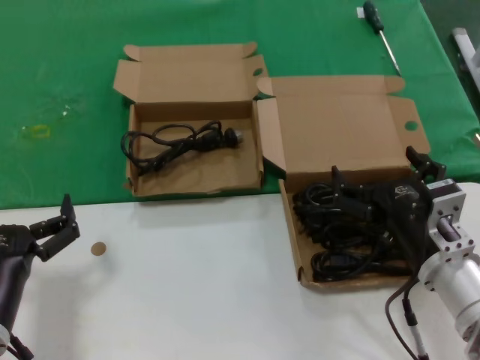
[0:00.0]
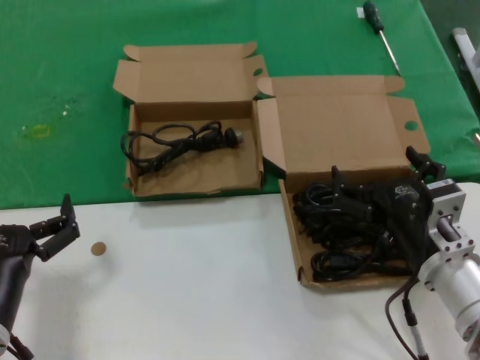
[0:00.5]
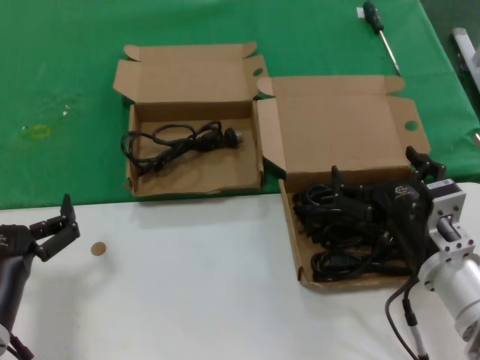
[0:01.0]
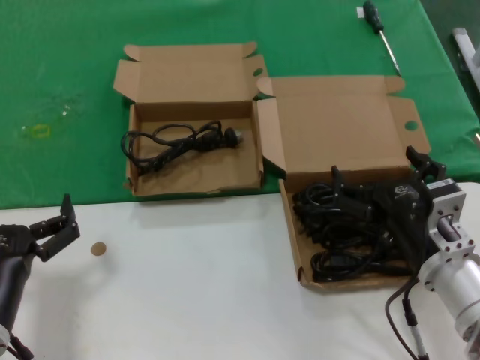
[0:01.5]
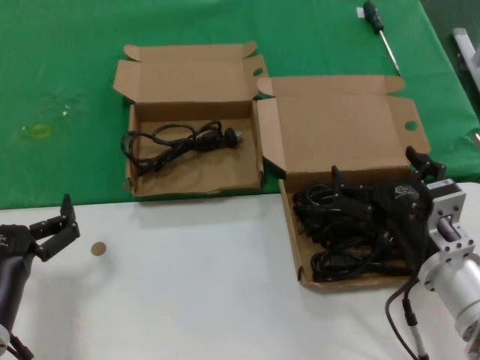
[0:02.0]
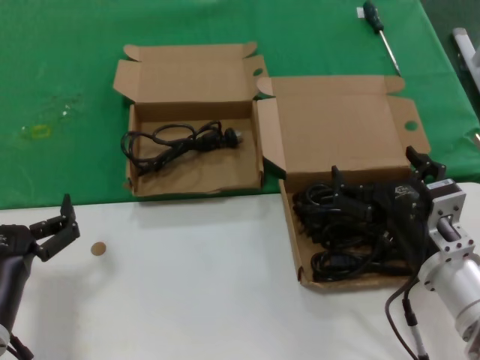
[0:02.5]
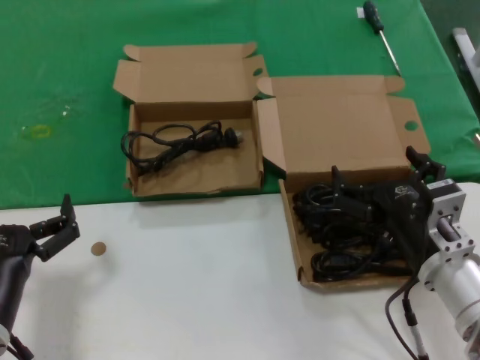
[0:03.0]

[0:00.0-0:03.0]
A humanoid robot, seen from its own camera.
Task of the whole recording: take the parts from the box containing them and put them into an empty box.
0:00.0 to 0:03.0: Both hands stay about where they are.

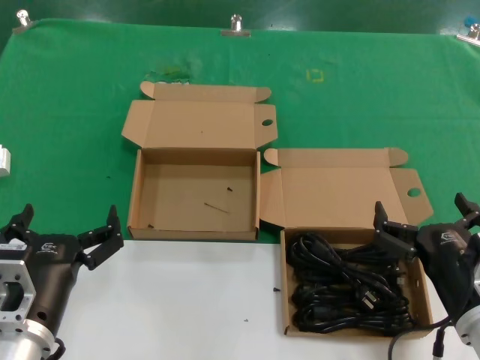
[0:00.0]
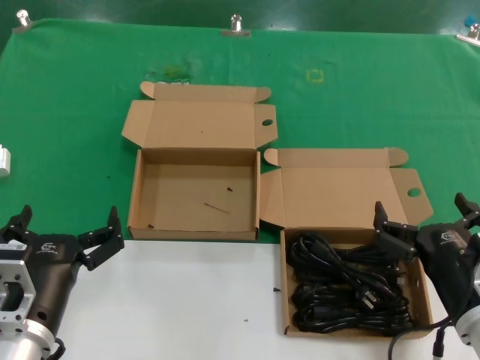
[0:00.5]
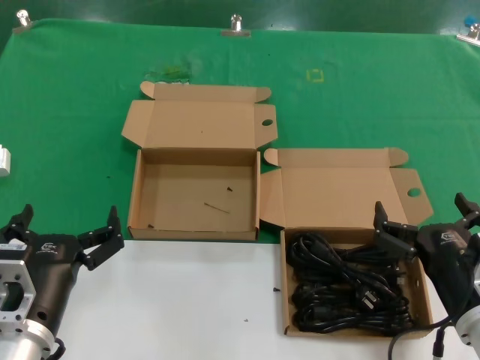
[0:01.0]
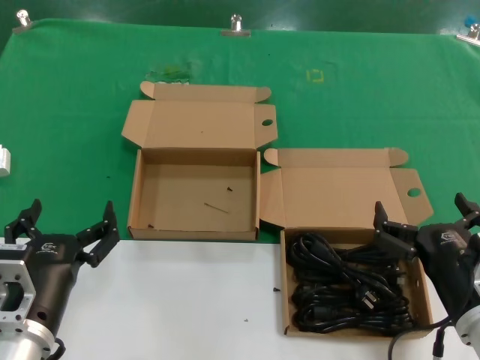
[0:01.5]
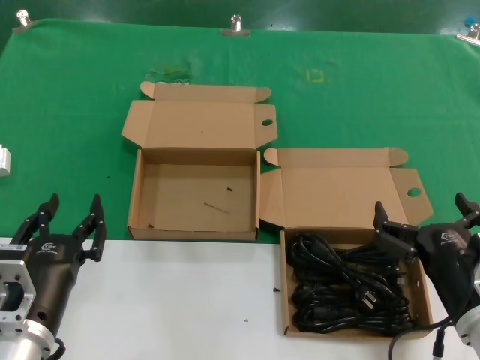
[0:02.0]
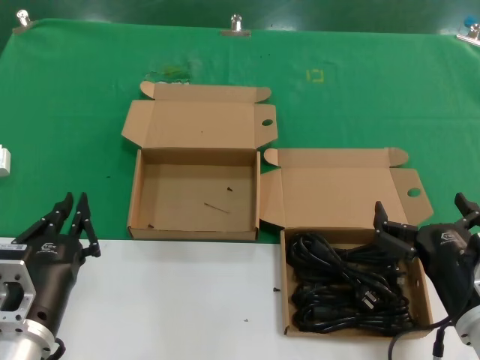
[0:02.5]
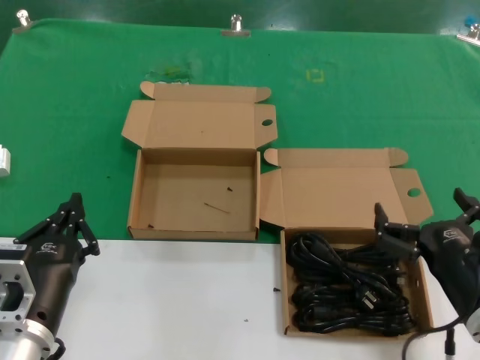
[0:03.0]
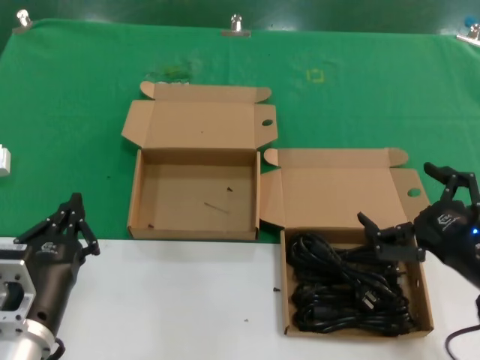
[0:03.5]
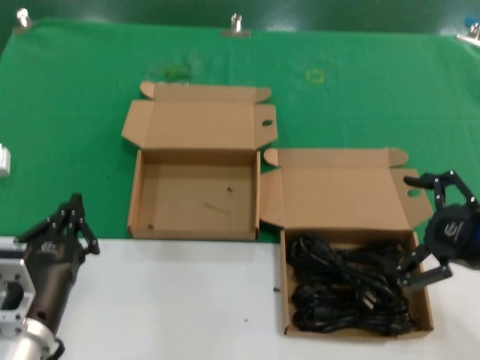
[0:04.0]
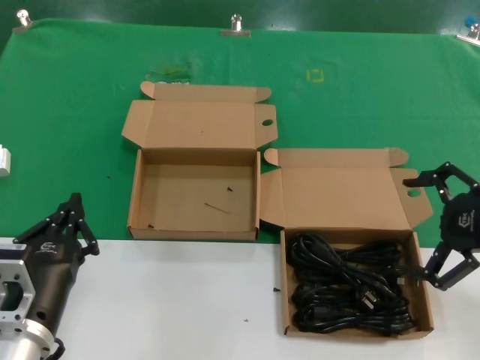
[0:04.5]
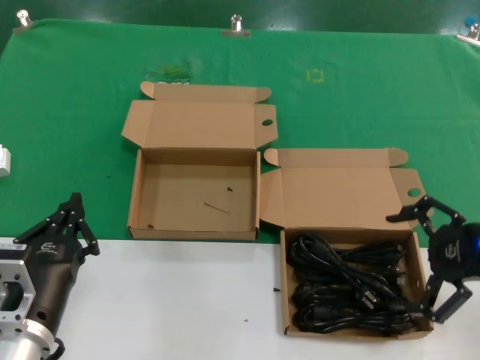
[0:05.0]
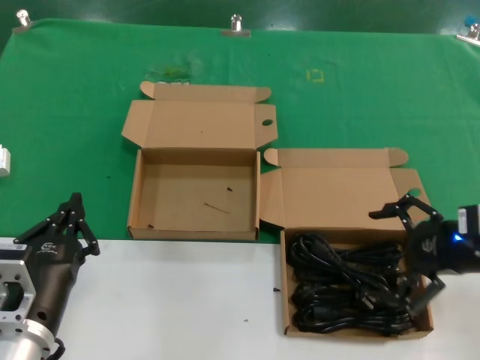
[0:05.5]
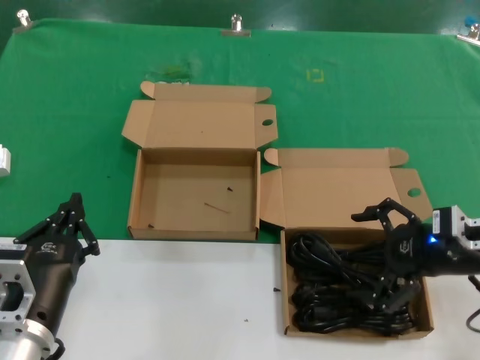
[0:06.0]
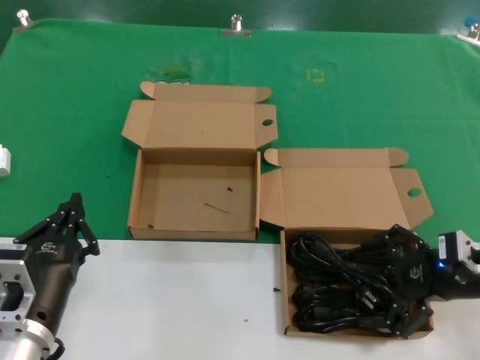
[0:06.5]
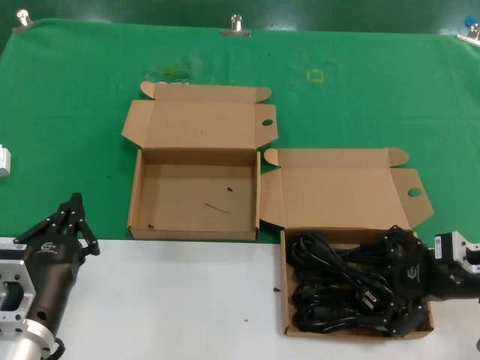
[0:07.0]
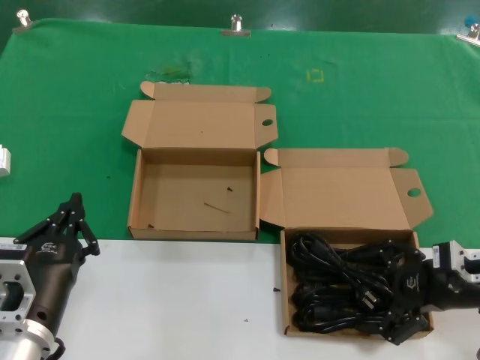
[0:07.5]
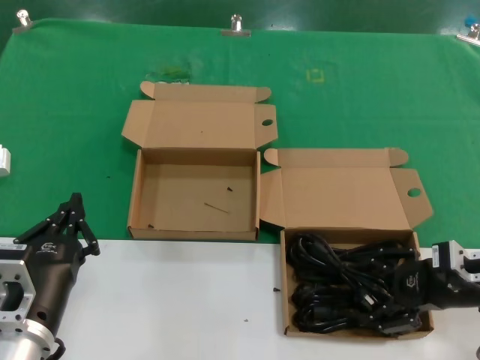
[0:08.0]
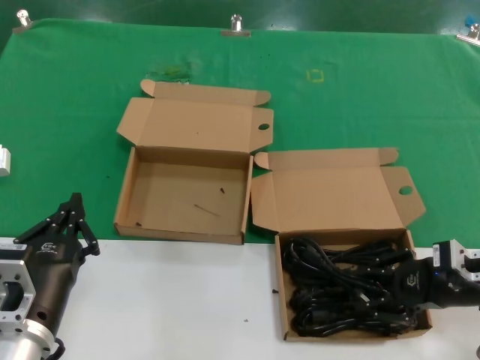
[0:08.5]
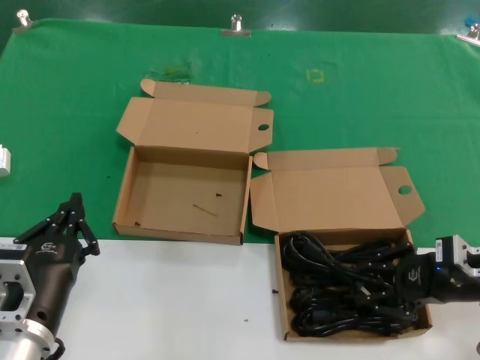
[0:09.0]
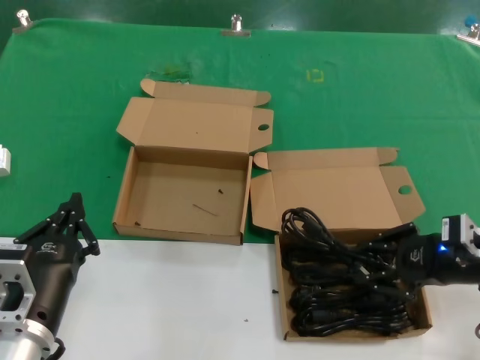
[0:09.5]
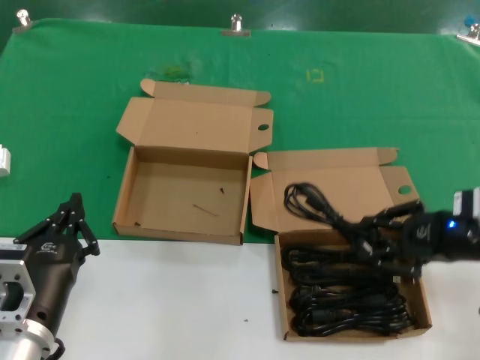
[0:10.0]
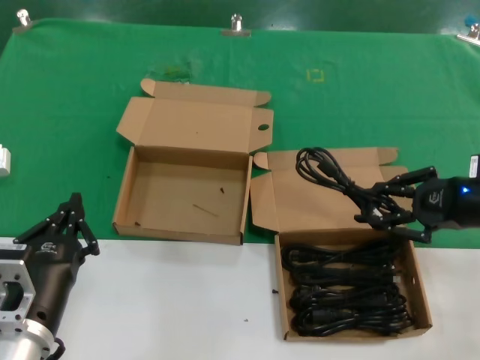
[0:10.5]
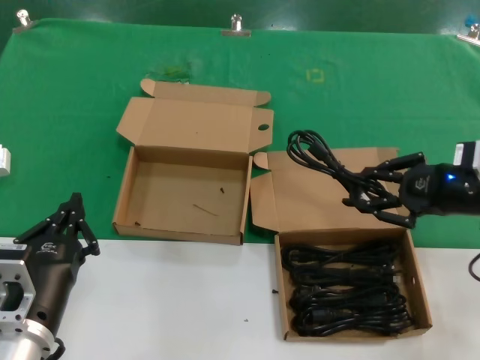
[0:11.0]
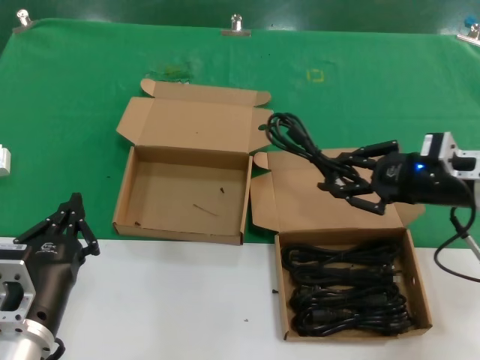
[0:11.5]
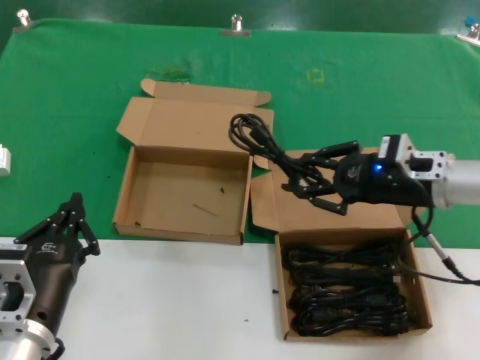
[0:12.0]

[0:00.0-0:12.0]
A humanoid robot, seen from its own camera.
Task of the whole recording: take the parts from the box containing them and put them into an empty box.
Step, 0:00.0 to 0:08.0: Grasp the data cable.
0:00.0 to 0:02.0: Both hands stay about where they are.
0:02.0 to 0:04.0: The right hand heads to the right and upward, covering some 15 cm.
0:04.0 to 0:06.0: The right hand travels forward by roughly 10 cm.
0:06.0 to 0:08.0: The hands move only a little.
0:08.0 to 0:10.0: The right hand travels upward by approximately 5 cm.
0:10.0 to 0:12.0: The right hand moves to the left and forward, approximately 10 cm.

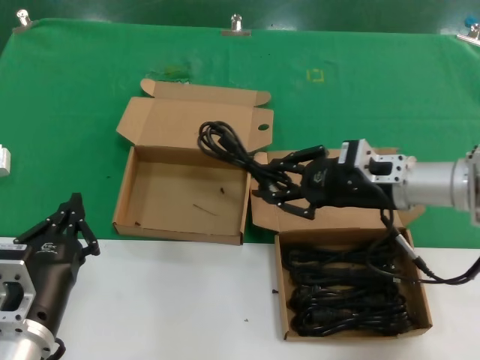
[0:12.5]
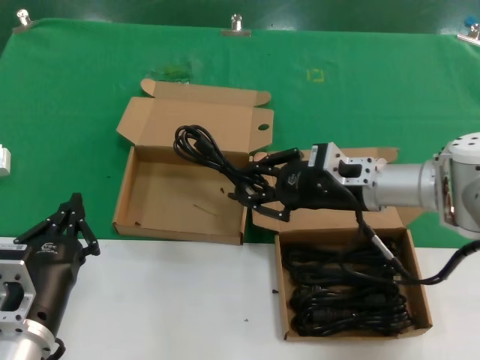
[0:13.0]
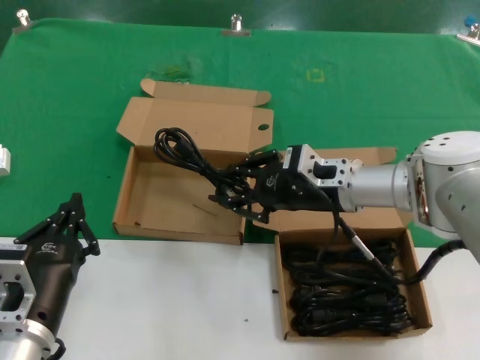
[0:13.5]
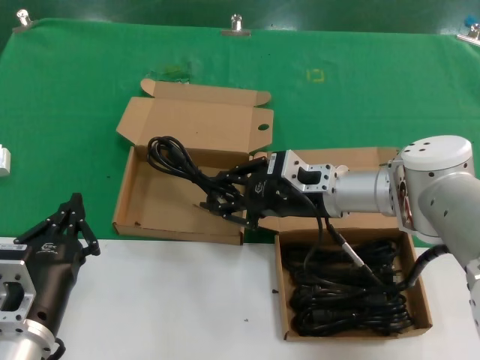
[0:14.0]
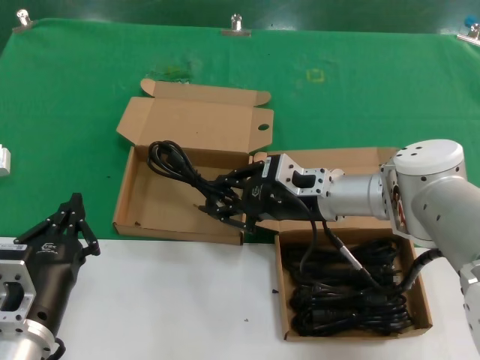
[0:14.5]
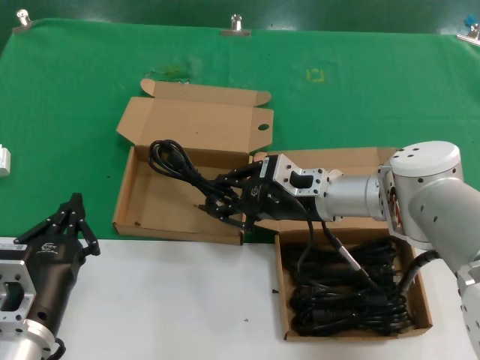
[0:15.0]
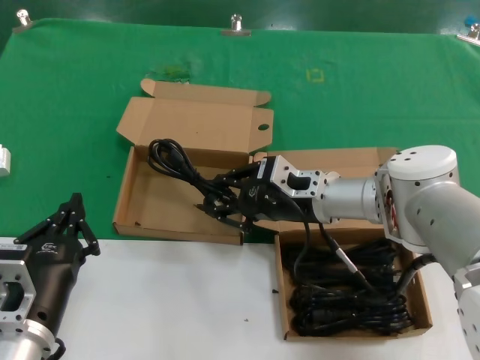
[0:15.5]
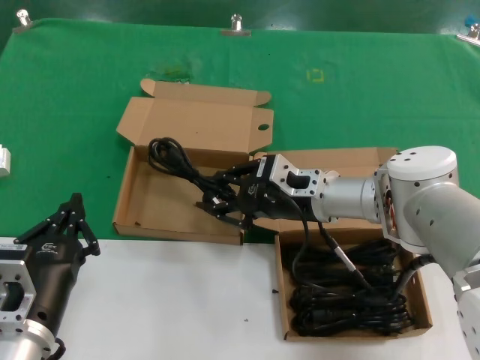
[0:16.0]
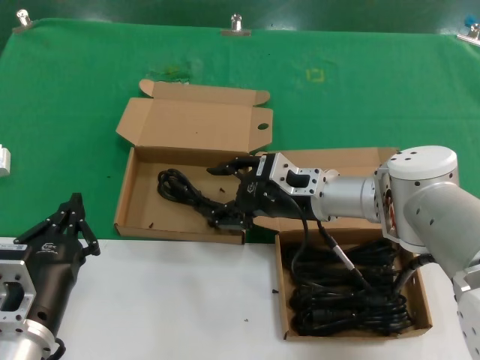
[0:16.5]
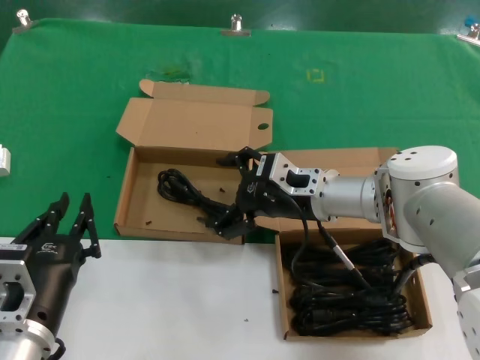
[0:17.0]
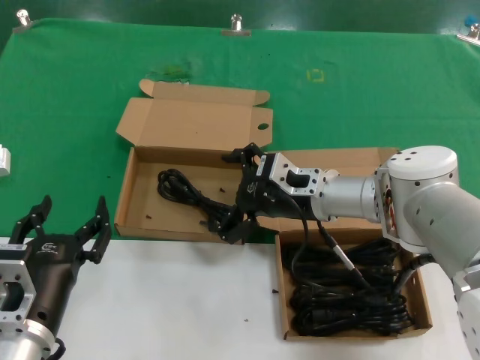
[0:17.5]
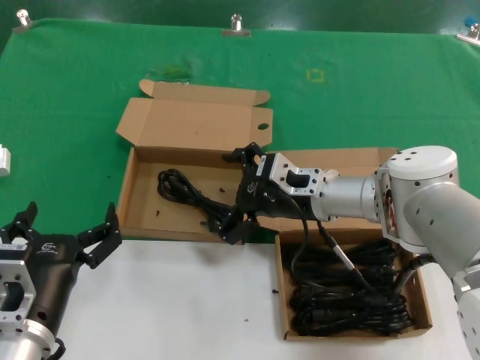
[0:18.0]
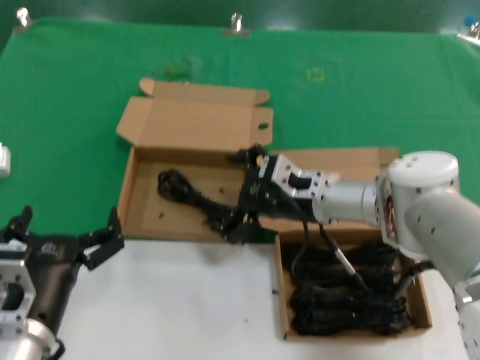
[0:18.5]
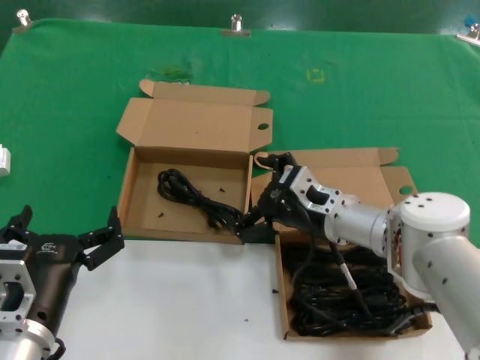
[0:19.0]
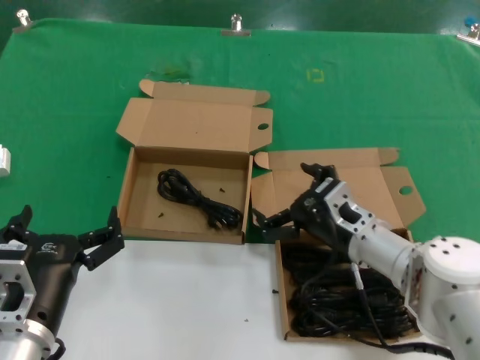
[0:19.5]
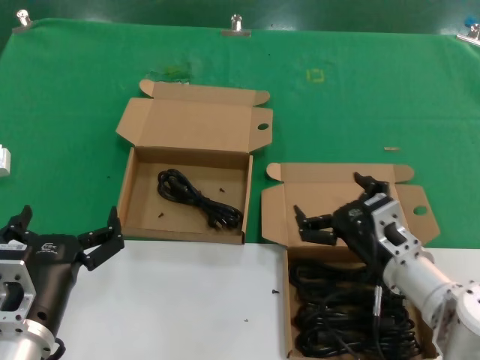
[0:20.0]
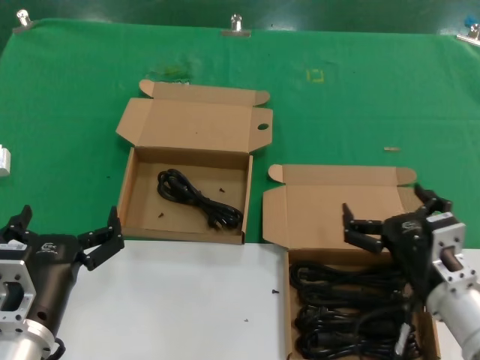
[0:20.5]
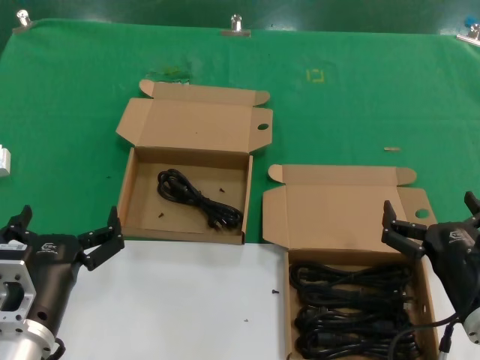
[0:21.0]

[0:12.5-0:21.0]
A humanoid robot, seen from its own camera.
Task of the whole recording: take the parts from the box containing them and put them into an empty box.
Step, 0:12.5 to 0:16.5: Place the data cable in the another box.
0:12.5 to 0:14.5: The right hand is displaced to the left by approximately 10 cm.
0:14.5 to 0:16.5: Neither hand changes place.
0:16.5 to 0:19.0: The right hand ends up approximately 5 cm from where it was.
0:19.0 to 0:21.0: The right hand moves backward and to the right, approximately 20 cm.

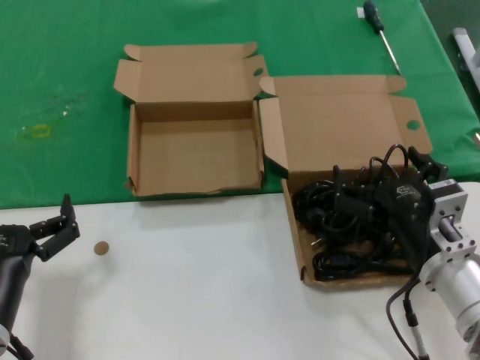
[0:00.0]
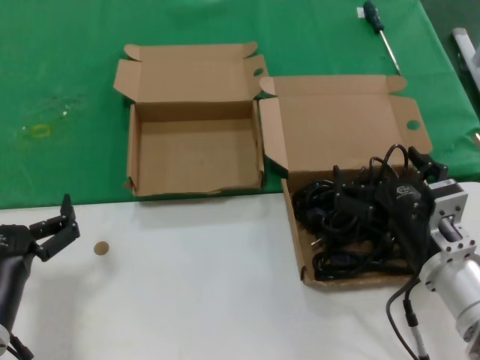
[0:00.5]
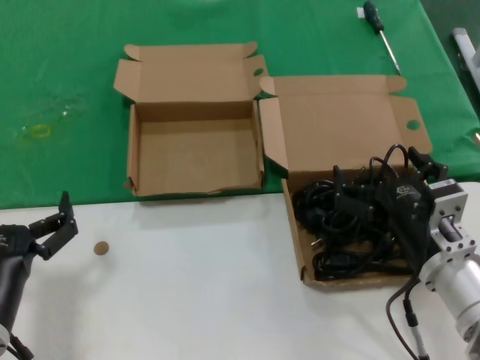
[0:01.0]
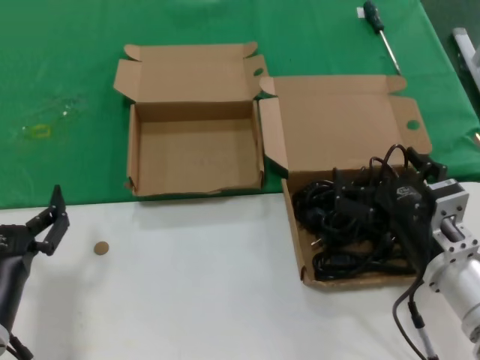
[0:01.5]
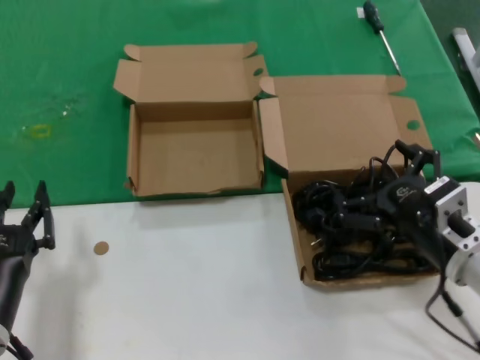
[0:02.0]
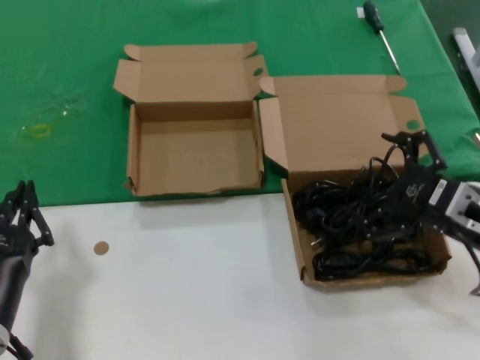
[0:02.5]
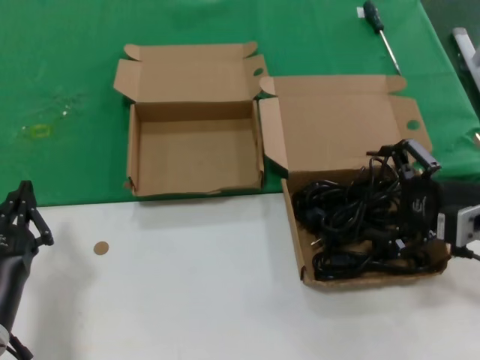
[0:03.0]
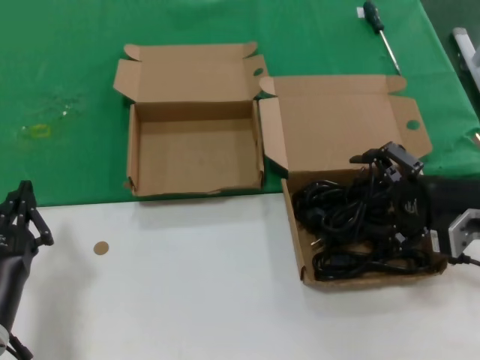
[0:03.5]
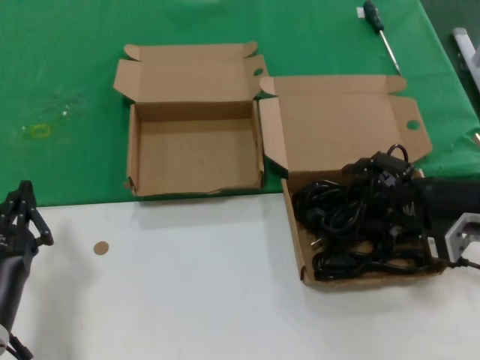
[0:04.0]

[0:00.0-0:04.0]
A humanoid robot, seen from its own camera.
Task of the whole recording: take the parts from the box containing them and put them into an empty box.
0:00.0 to 0:02.0: The hands stay close to where they were, moving slightly.
0:02.0 to 0:04.0: The right hand moves to the right, forward and upward, about 15 cm.
